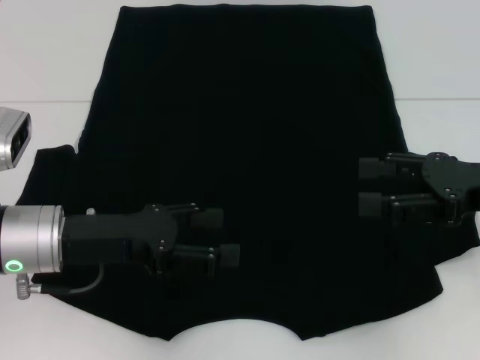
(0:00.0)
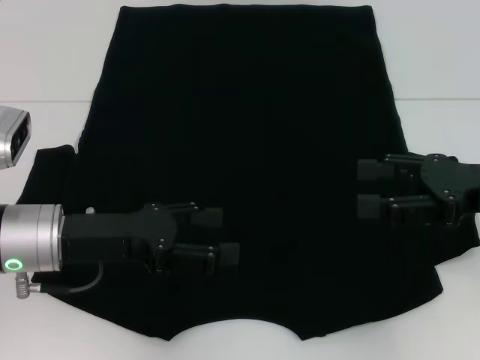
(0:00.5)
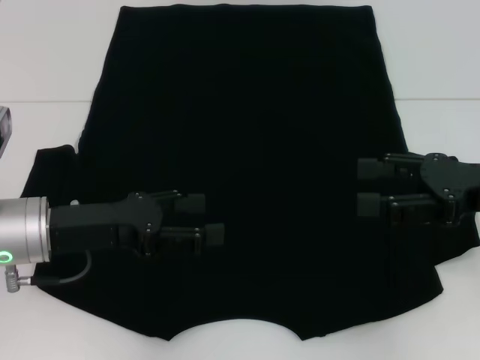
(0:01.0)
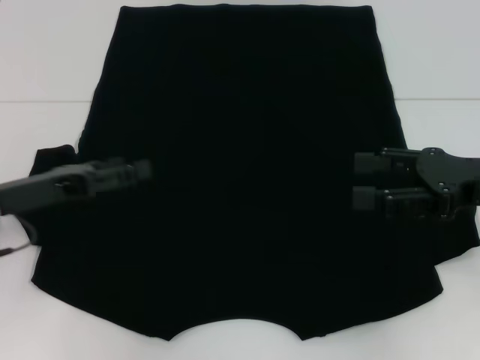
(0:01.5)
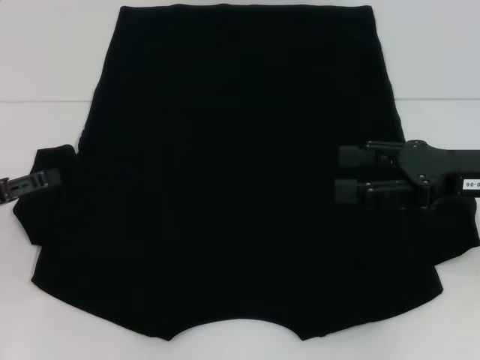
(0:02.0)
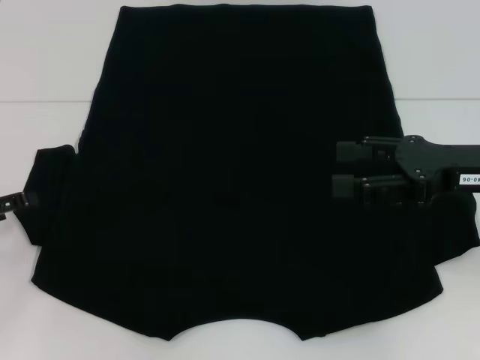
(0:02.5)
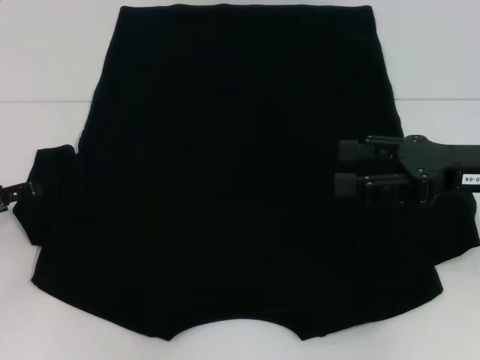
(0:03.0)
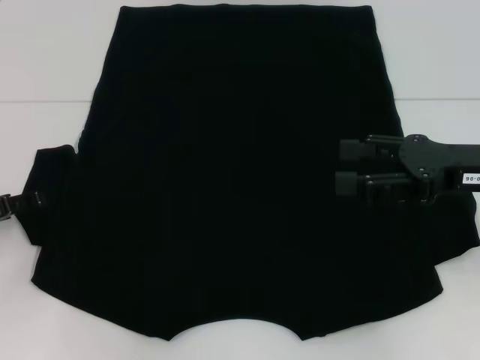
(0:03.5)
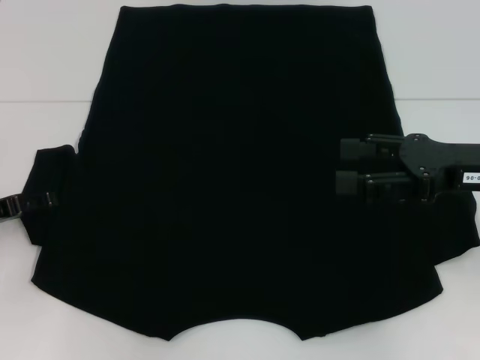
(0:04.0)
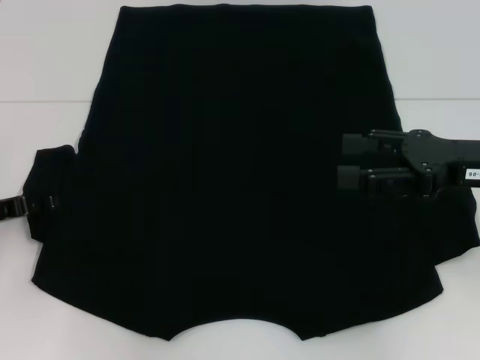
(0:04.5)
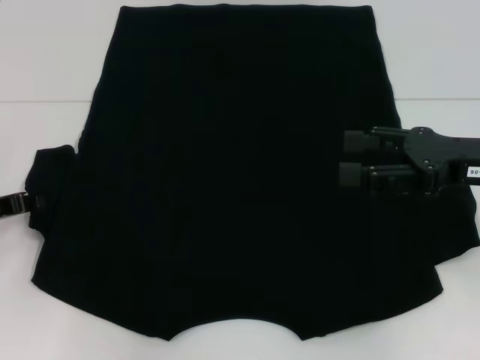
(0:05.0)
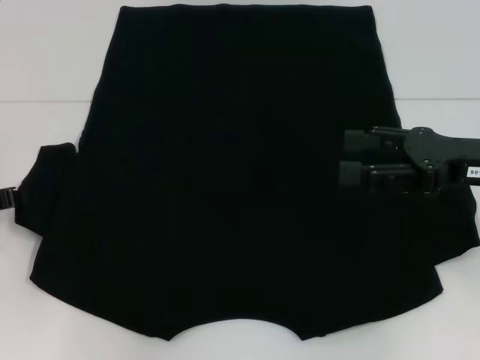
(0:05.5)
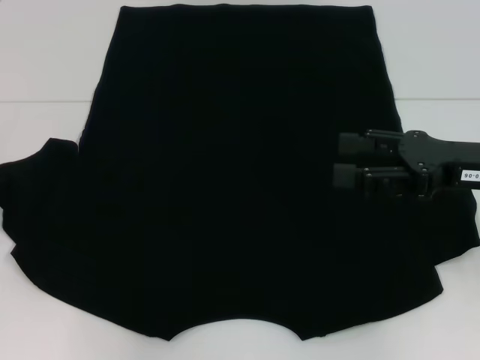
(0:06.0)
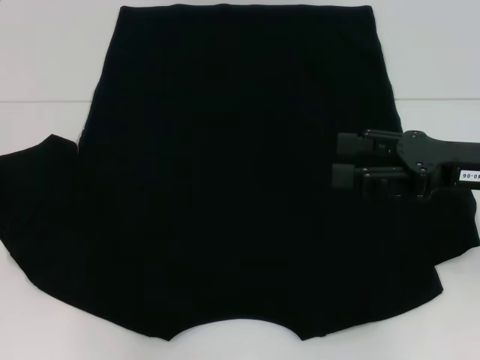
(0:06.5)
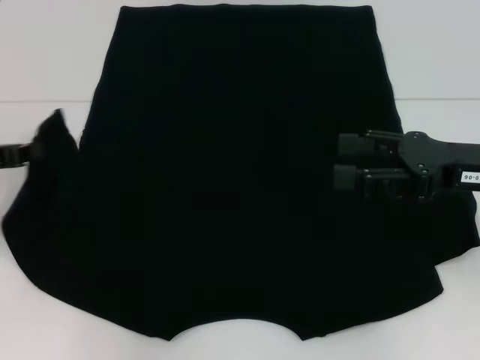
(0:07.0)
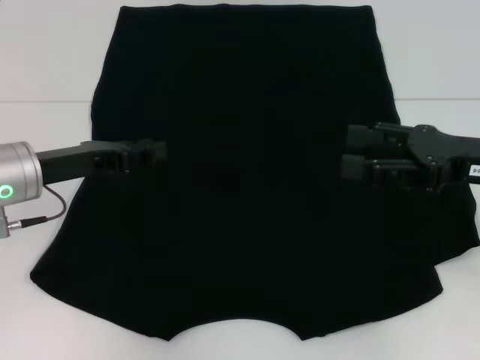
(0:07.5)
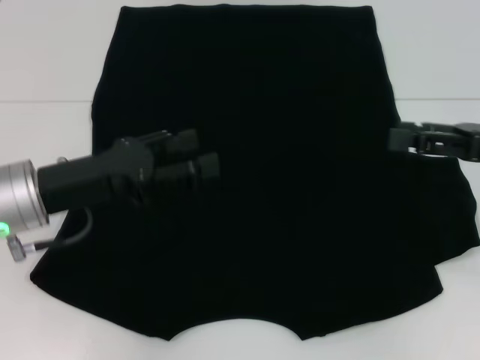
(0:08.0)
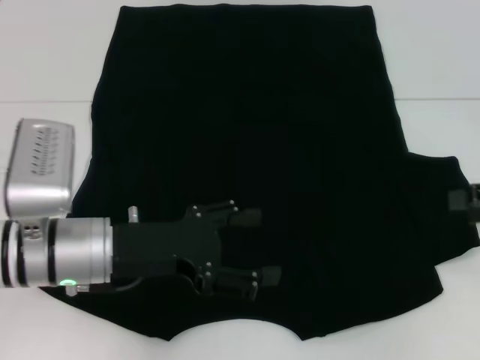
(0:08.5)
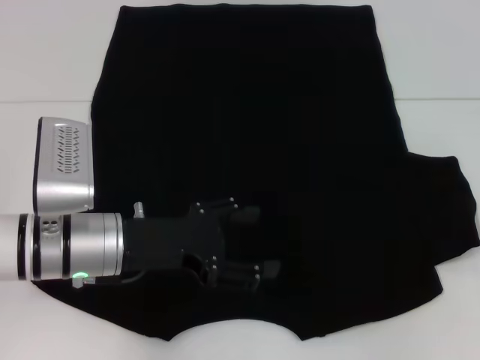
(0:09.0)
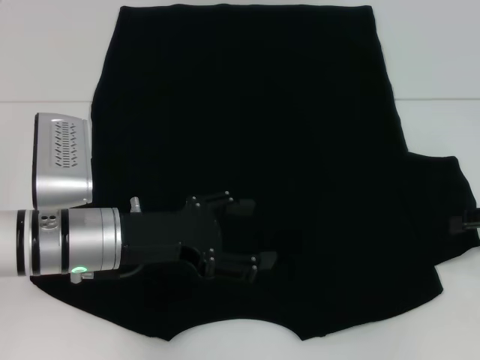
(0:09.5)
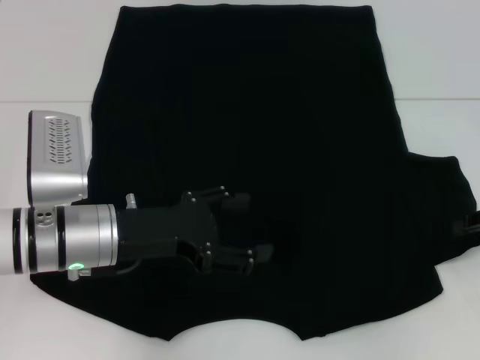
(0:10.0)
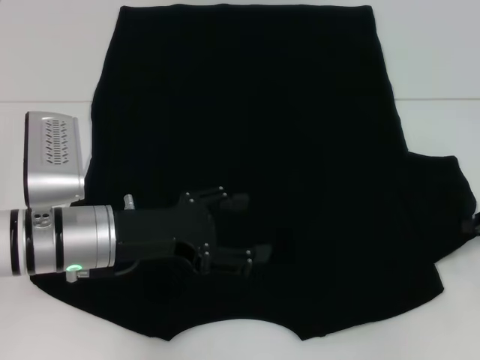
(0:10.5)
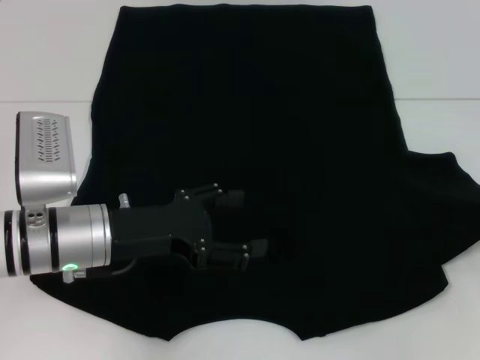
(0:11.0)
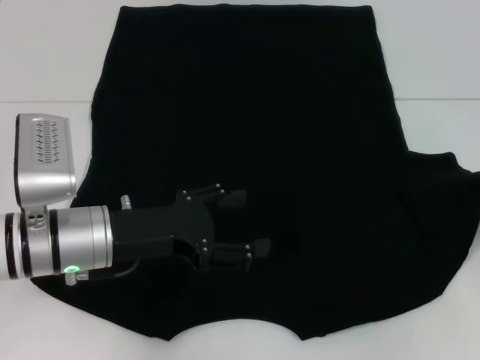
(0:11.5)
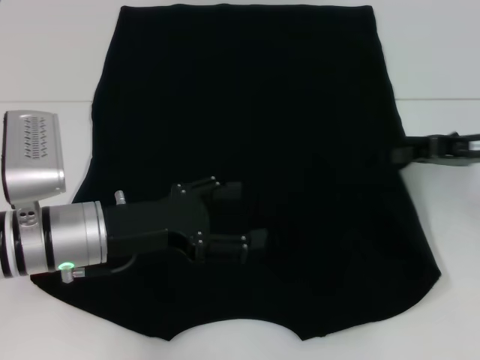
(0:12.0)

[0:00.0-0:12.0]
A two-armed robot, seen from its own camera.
Step, 0:00.0 to 0:07.5: Fold the bottom left sleeve with your left hand.
0:00.0 to 0:02.0: The left gripper is displaced to the left by approximately 15 cm.
0:02.0 to 0:04.0: The grippers stay close to where they were, moving slightly.
0:04.0 to 0:06.0: The left gripper closes its fingers.
0:06.0 to 0:08.0: The right gripper ends up some 5 cm from where it was, while the left gripper travels to the right by roughly 15 cm, and opens.
0:08.0 to 0:10.0: The left gripper changes place by some 5 cm, and opens its fingers; the right gripper moves downward and to the right, roughly 10 cm.
0:10.0 to 0:12.0: The right gripper moves to the left, roughly 5 cm, and closes.

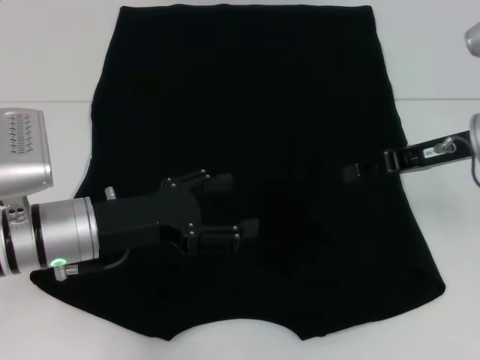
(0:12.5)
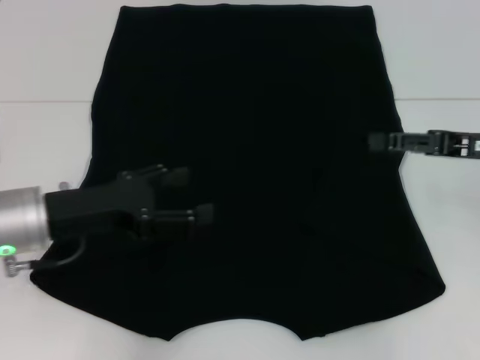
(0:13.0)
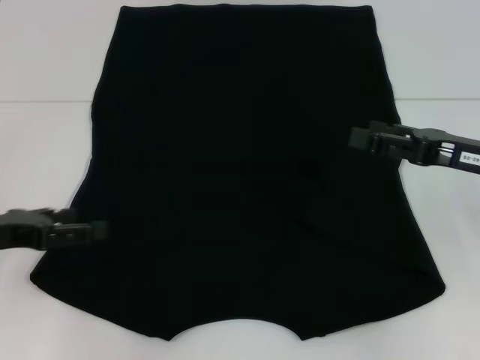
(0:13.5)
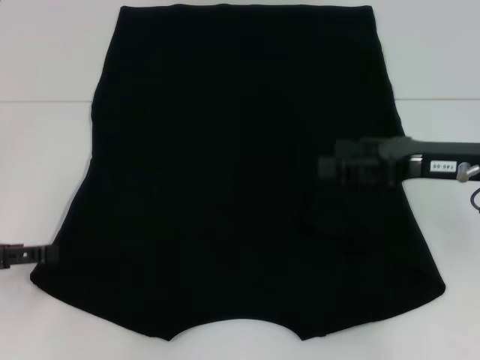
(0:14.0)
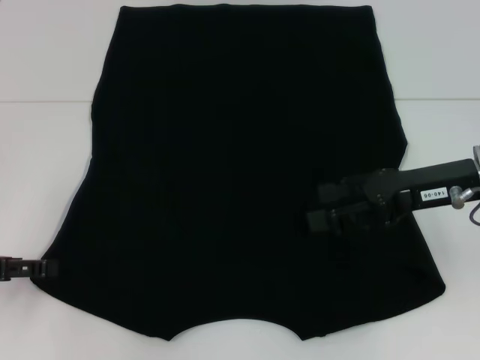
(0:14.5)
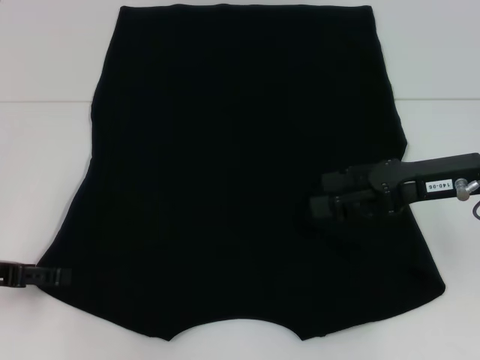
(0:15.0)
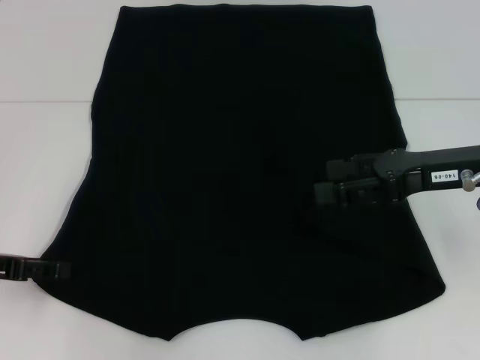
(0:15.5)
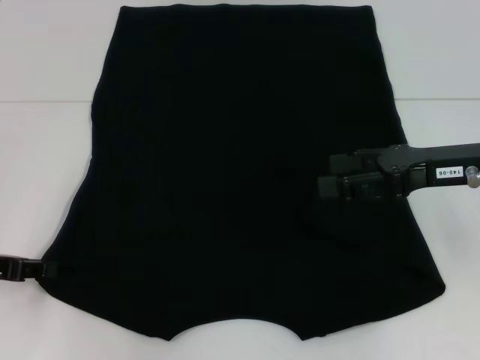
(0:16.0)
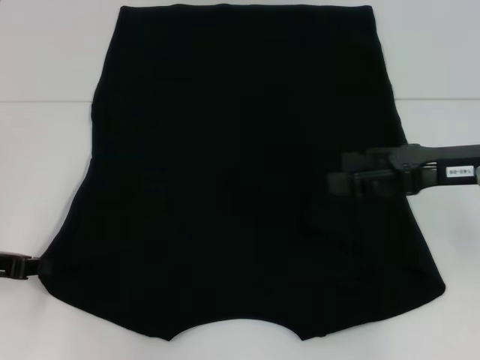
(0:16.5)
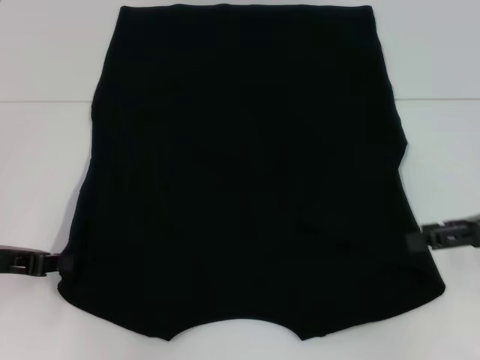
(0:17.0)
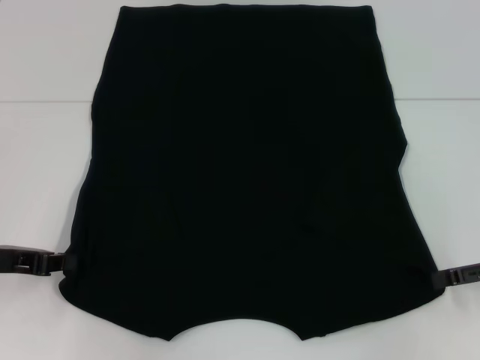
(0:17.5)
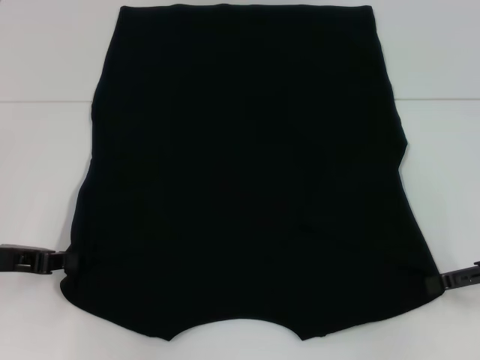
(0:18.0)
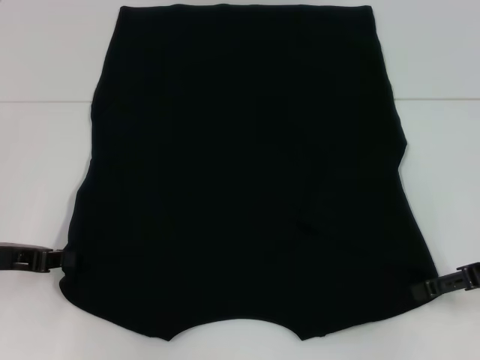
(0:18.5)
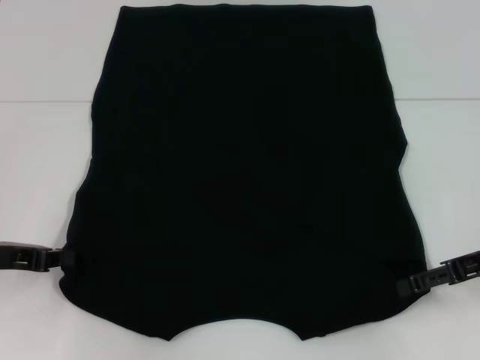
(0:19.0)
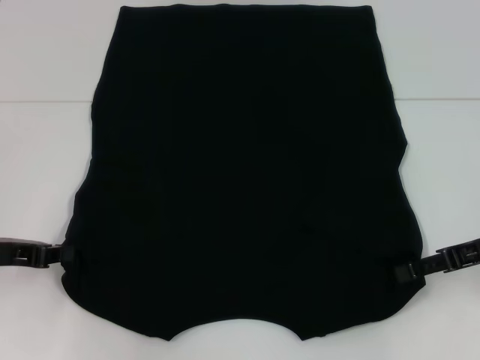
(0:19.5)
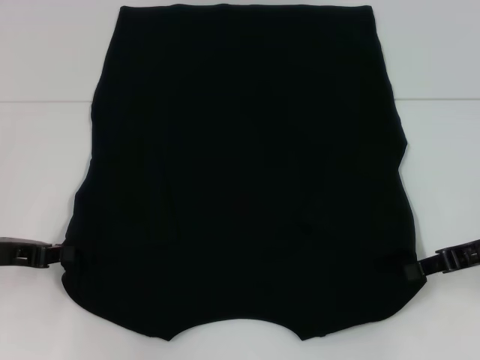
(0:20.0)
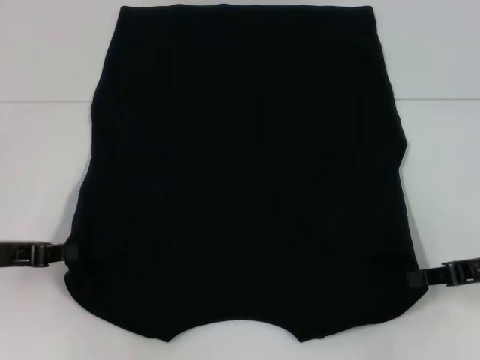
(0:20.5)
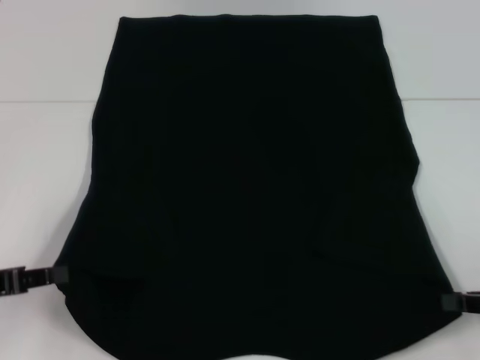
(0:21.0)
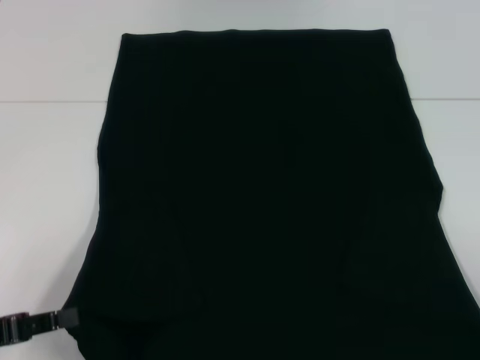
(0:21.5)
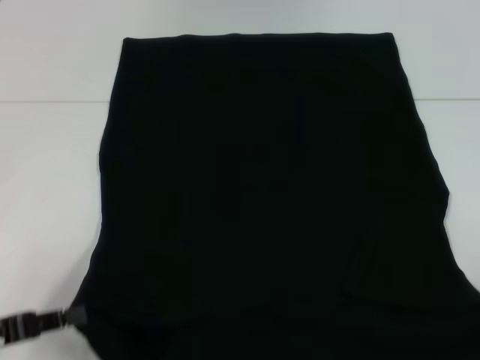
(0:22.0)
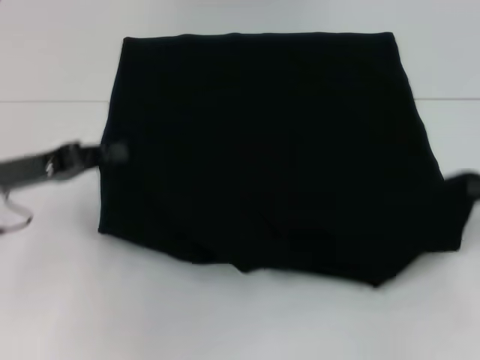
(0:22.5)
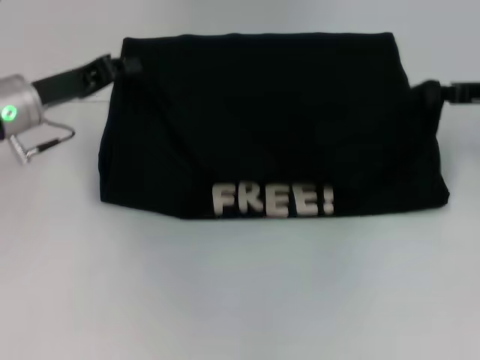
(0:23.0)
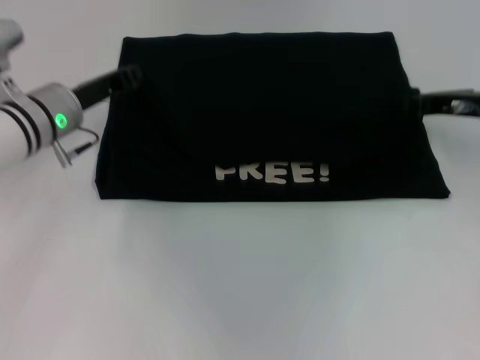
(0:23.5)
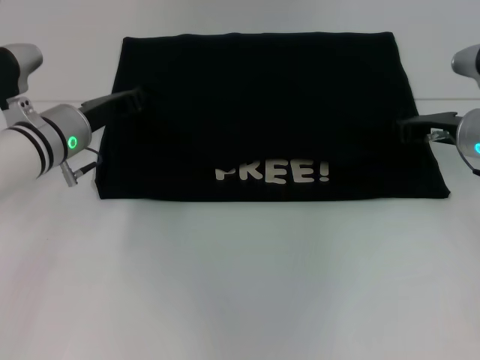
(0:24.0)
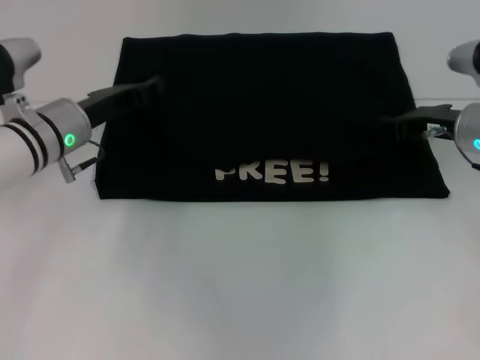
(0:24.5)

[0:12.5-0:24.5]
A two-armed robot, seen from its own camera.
Step, 0:13.0 to 0:16.0: Grab the bottom left corner with your left hand.
Step, 0:16.5 to 0:19.5: Grab the bottom right corner with your right hand.
Step, 0:20.0 to 0:24.5: Fold the clothes with your left hand.
Step, 0:20.0 to 0:24.5: Fold the clothes with your right hand.
0:12.5 to 0:14.5: The left gripper shifts approximately 15 cm to the left. Meanwhile the right gripper opens up.
0:16.5 to 0:18.5: The right gripper goes approximately 10 cm to the right and downward.
0:18.5 to 0:20.5: The right gripper closes.
0:20.5 to 0:22.5: The left gripper moves roughly 10 cm backward and comes back. Meanwhile the right gripper heads to the right, covering some 5 cm, and goes backward and returns, some 10 cm each way.
0:22.5 to 0:24.5: The left gripper shifts about 10 cm forward and to the right, and opens its fingers. Meanwhile the right gripper shifts roughly 15 cm to the left and forward.

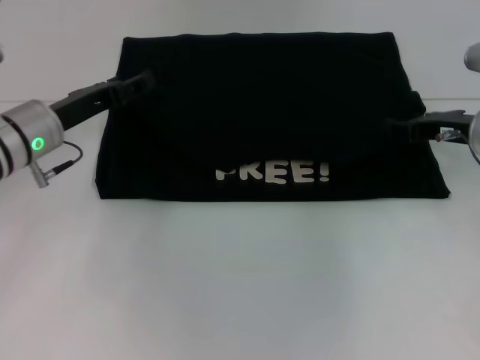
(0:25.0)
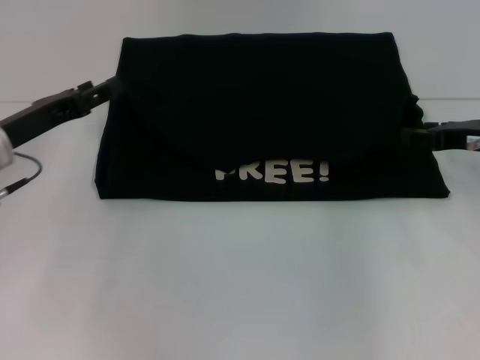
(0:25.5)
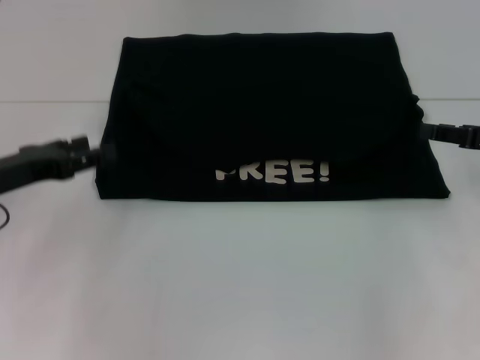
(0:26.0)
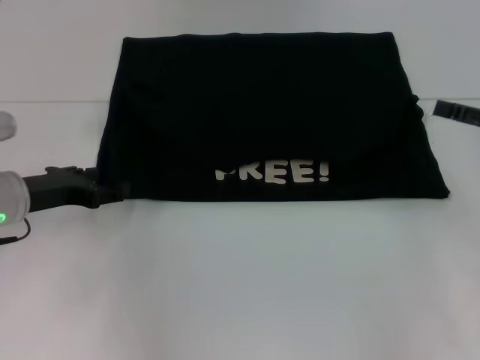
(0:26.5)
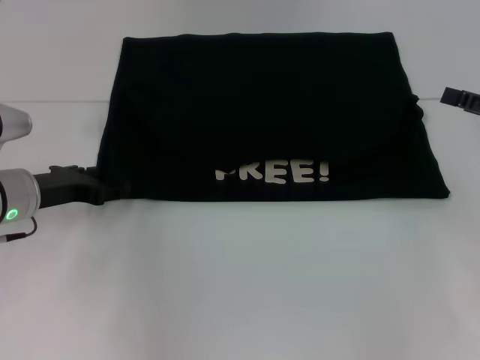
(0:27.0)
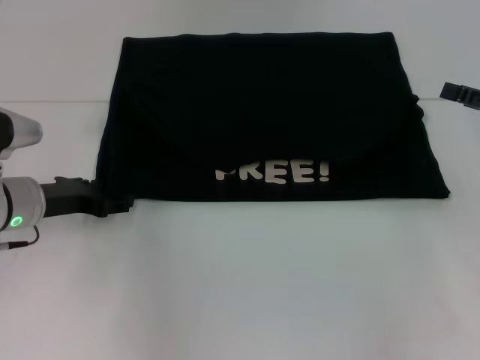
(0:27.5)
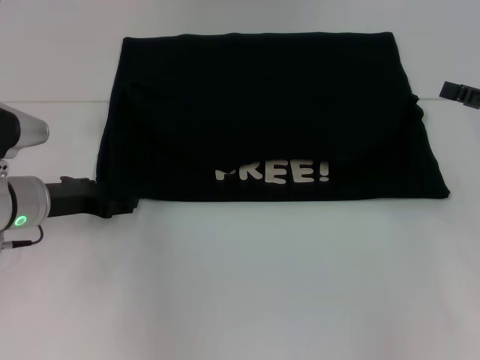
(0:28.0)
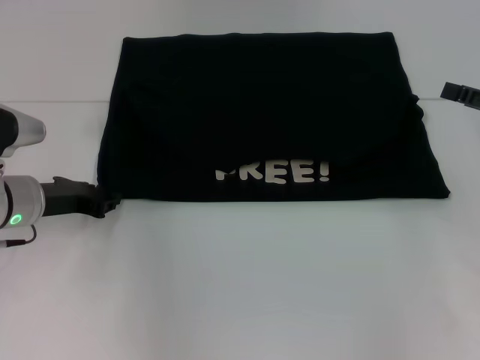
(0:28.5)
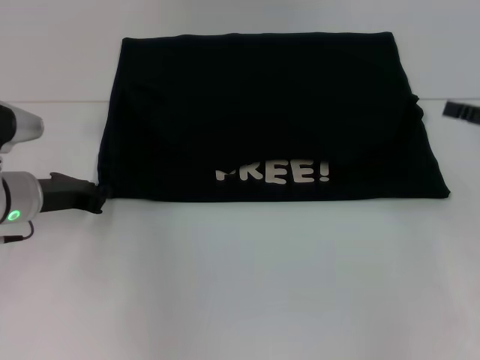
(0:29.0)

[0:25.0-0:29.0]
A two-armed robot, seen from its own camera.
0:25.0 to 0:27.0: The right gripper is displaced to the right and backward by some 10 cm, and opens its fingers.
0:27.0 to 0:29.0: The left gripper closes.
